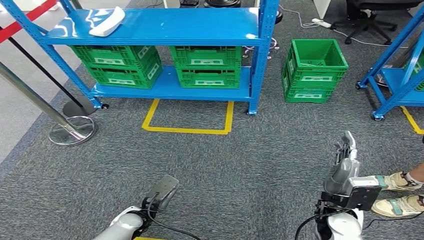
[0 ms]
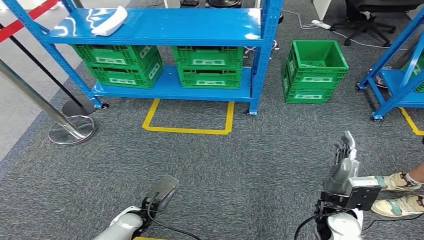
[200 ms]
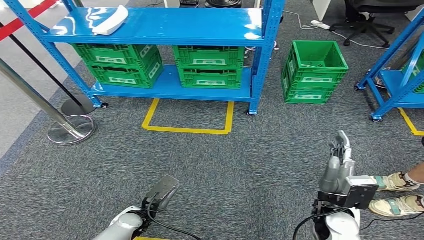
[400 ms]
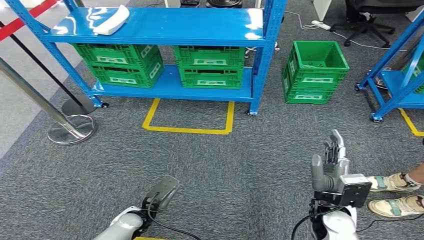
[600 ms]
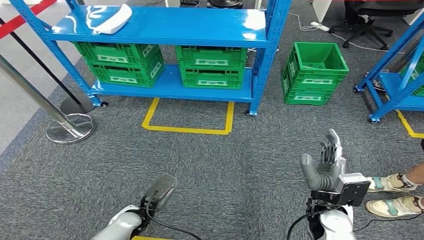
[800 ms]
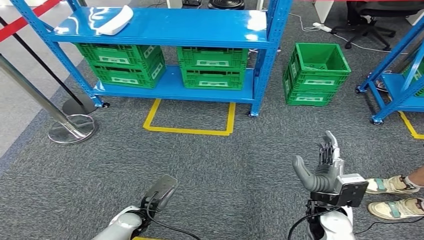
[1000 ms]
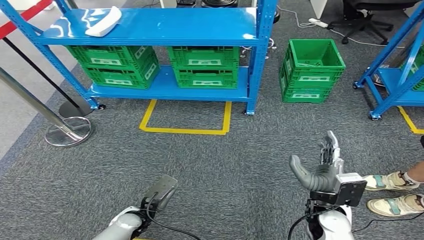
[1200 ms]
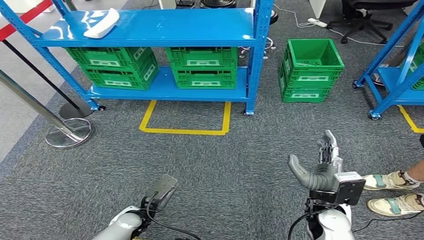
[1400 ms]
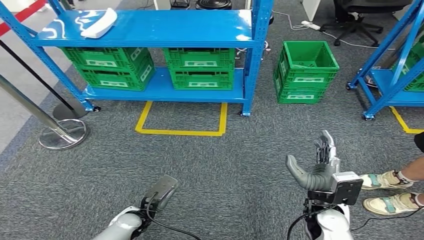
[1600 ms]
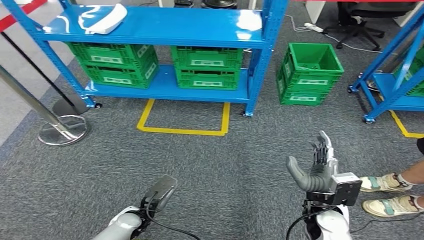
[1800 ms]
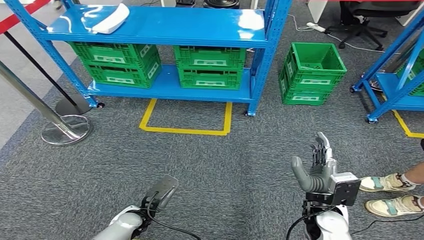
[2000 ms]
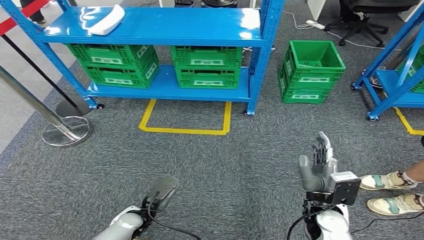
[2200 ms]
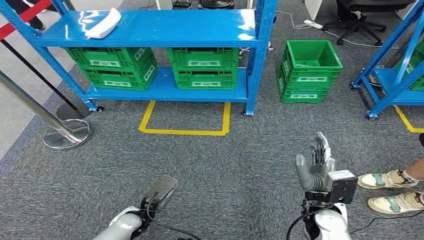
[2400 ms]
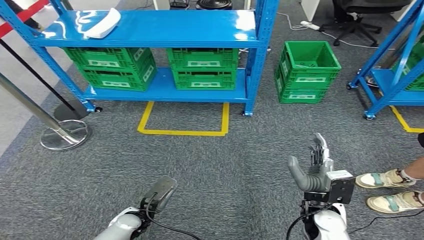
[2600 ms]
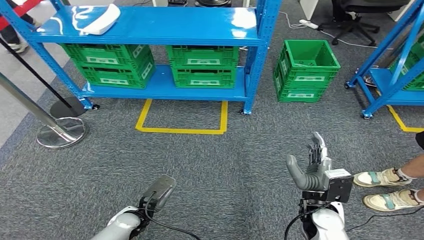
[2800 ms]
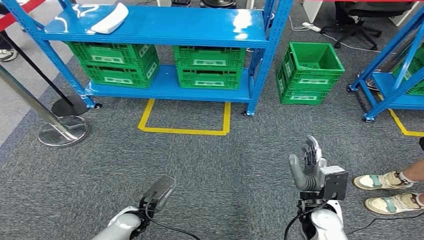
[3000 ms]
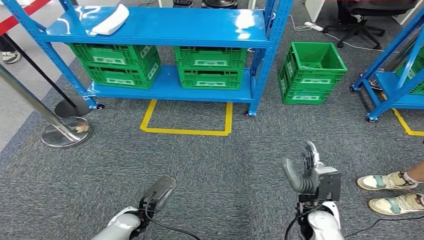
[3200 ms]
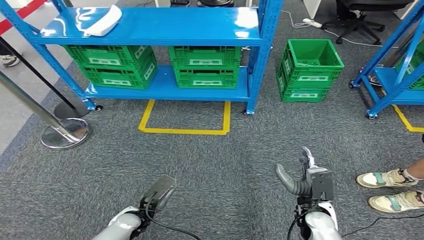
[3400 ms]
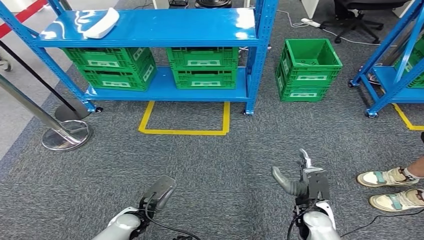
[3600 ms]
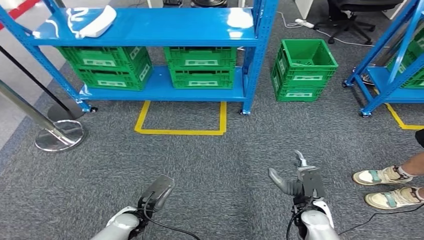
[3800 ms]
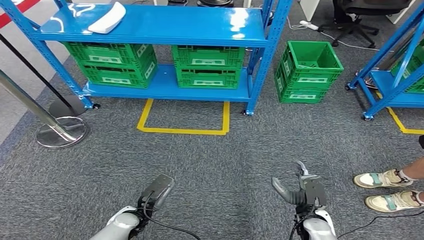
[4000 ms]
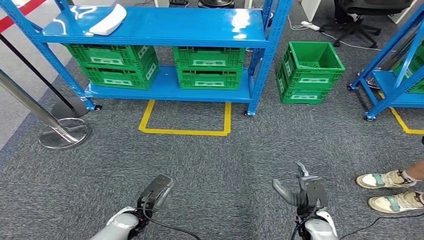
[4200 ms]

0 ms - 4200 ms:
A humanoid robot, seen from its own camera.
0 ms - 1400 ms: The hands move only a little.
2800 ms - 4200 ms: The right hand moves downward, approximately 10 cm.
